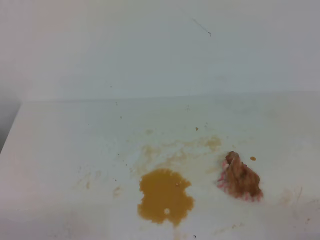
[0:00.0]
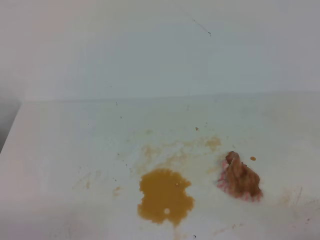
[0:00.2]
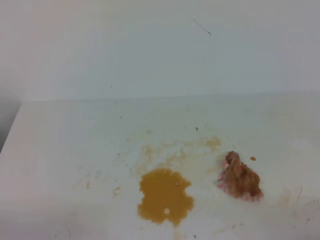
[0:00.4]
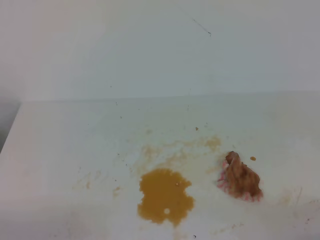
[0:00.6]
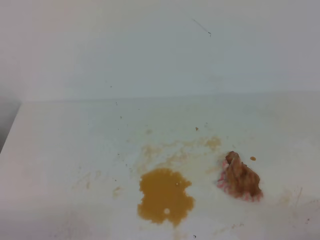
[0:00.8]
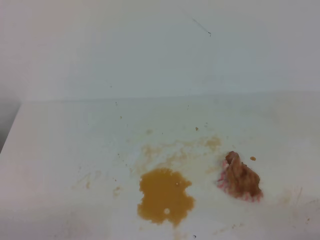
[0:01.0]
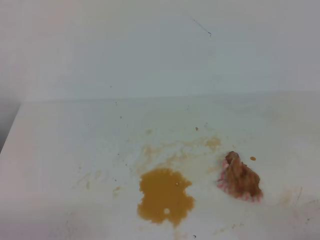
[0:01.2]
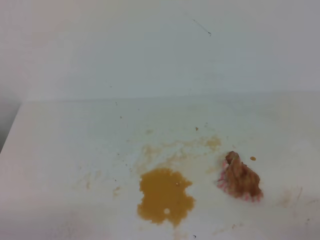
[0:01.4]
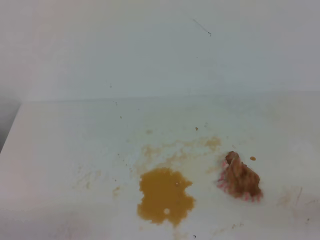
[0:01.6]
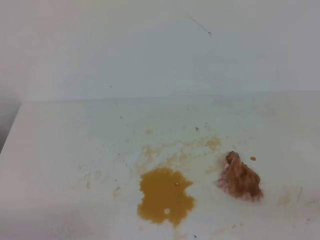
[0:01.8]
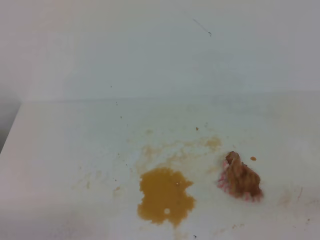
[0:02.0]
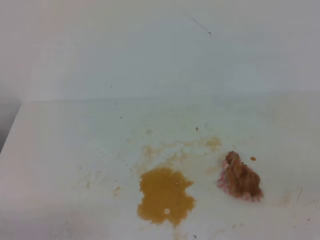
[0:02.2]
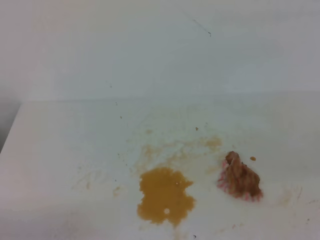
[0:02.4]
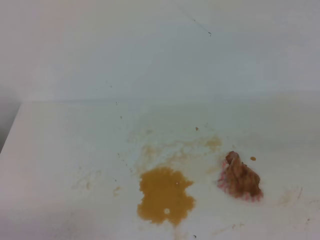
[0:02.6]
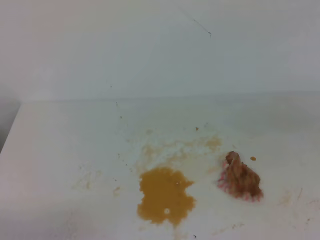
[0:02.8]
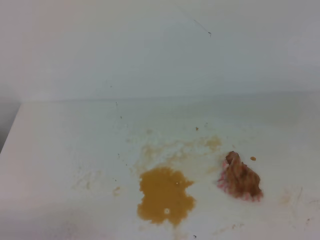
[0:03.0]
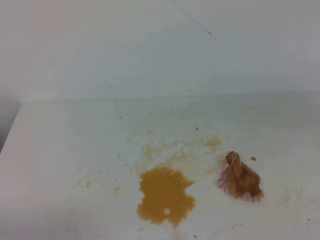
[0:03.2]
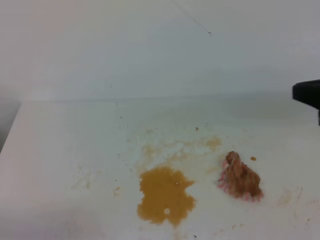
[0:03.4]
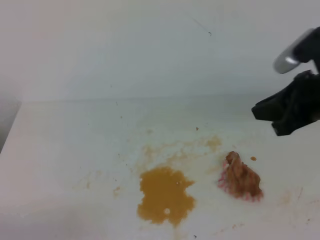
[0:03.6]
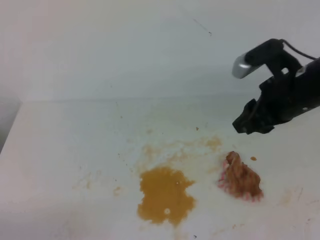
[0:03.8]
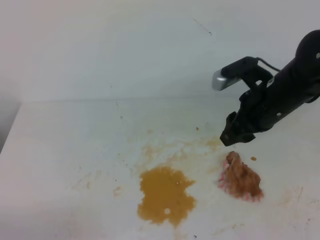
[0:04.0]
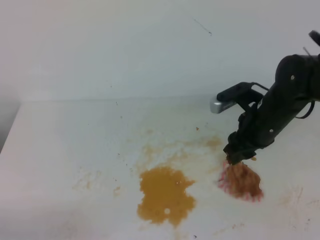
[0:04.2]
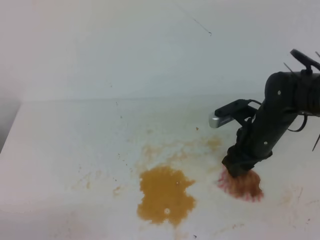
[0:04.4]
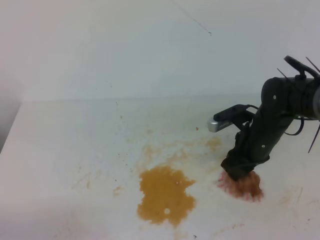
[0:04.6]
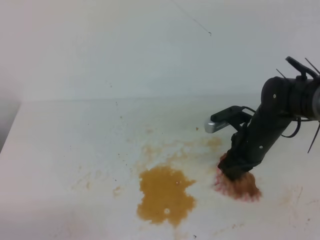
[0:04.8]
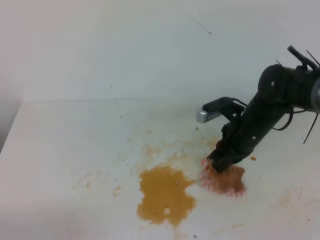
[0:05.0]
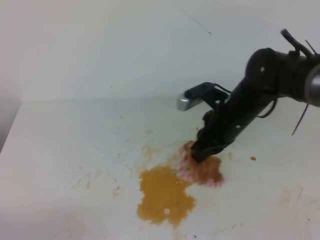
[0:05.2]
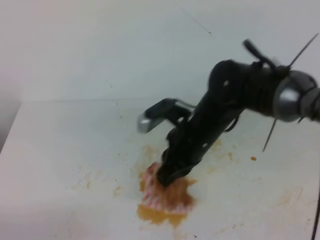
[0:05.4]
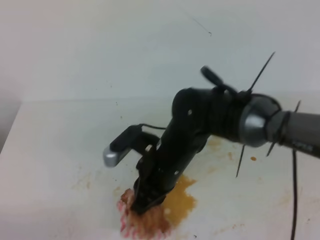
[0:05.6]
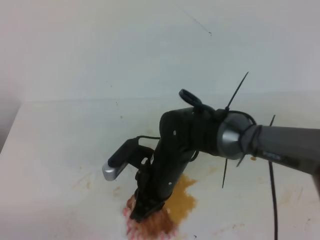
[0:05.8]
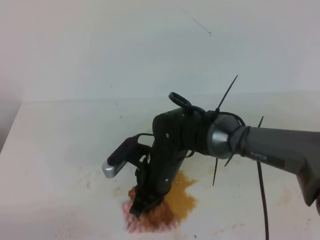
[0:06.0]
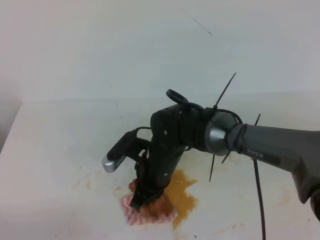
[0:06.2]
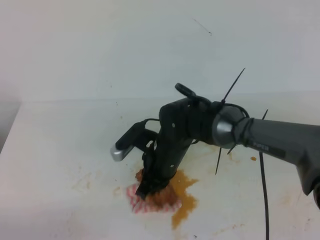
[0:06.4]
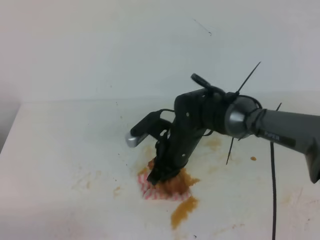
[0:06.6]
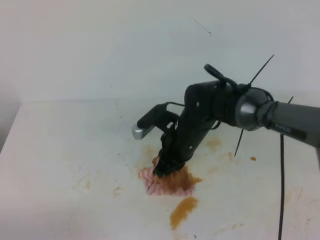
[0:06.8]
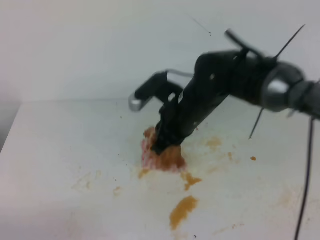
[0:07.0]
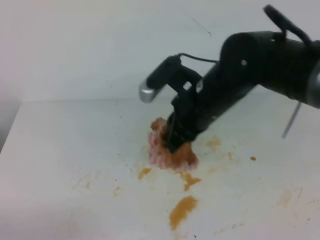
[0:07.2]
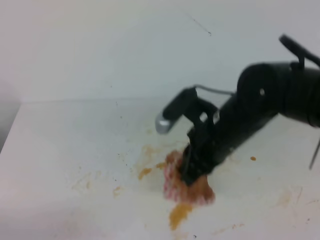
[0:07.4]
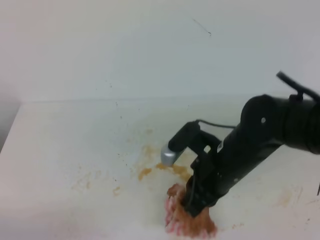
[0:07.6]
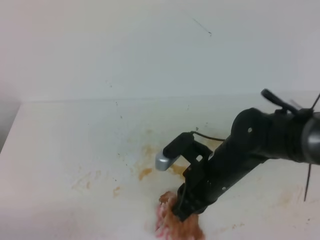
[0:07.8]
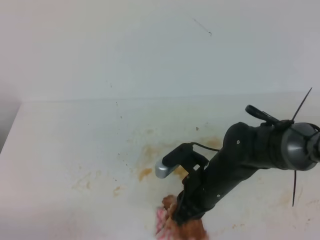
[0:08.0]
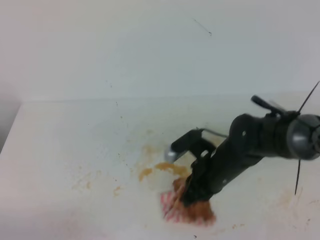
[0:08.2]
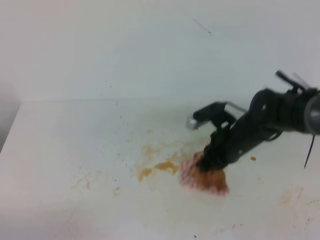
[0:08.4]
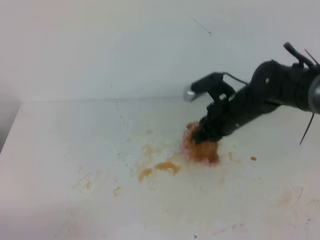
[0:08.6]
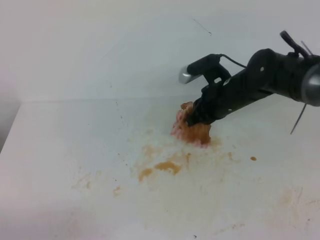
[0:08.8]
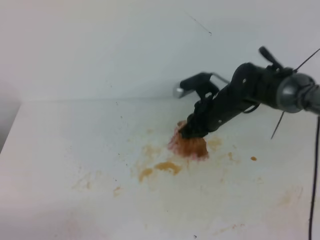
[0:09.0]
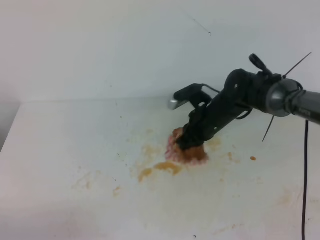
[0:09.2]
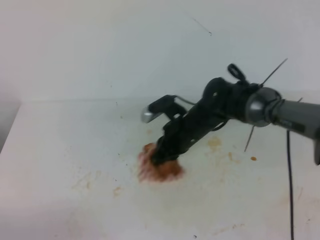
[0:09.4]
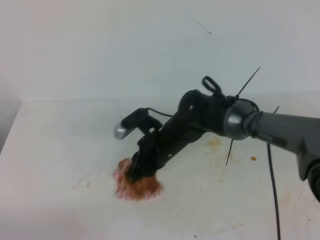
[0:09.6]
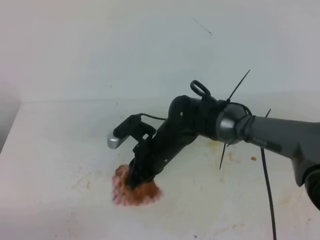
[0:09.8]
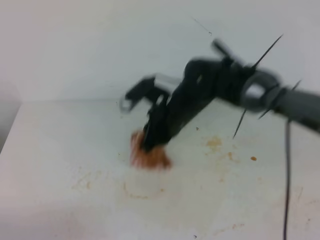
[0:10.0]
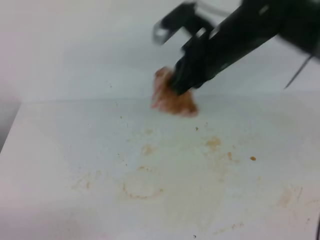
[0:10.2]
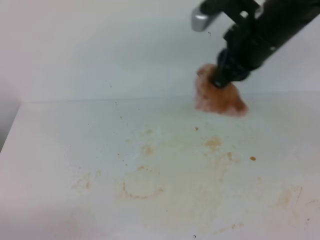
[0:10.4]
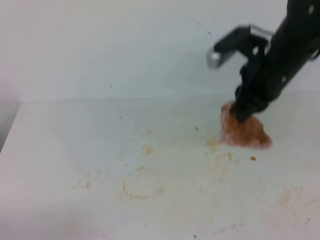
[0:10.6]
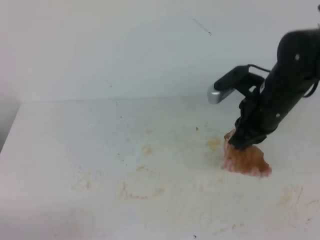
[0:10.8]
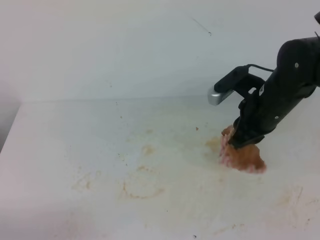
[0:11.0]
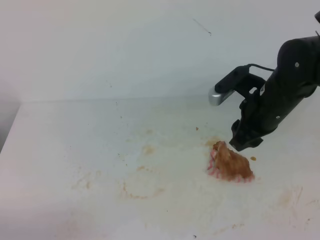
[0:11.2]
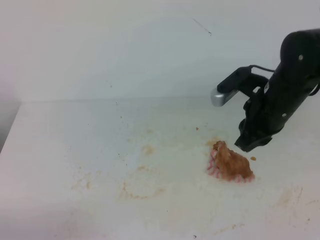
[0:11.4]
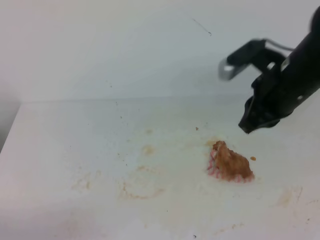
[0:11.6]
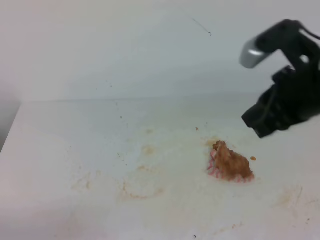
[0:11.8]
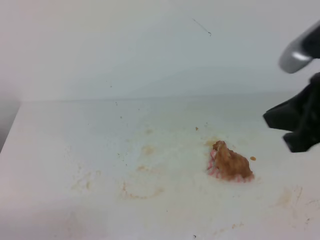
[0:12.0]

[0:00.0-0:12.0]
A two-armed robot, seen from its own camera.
0:03.0 to 0:04.4: The right gripper shifts about 30 cm forward, downward and to the left, and opens its fingers.
0:04.4 to 0:06.0: The right gripper is displaced to the left by roughly 20 cm, and closes.
0:06.0 to 0:07.6: The right gripper heads to the right and upward, covering some 10 cm.
0:07.6 to 0:09.0: The right gripper is displaced forward by some 15 cm.
0:09.0 to 0:10.4: The right gripper goes approximately 15 cm upward.
0:10.4 to 0:12.0: The right gripper heads backward and to the right, covering approximately 15 cm, and opens, then closes again.

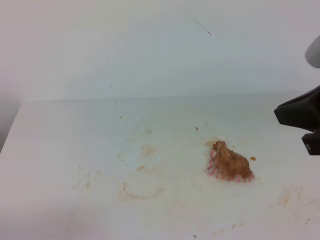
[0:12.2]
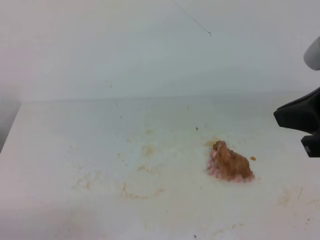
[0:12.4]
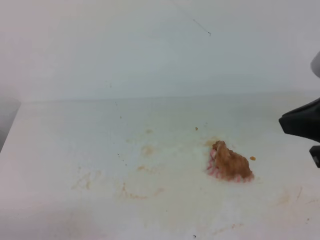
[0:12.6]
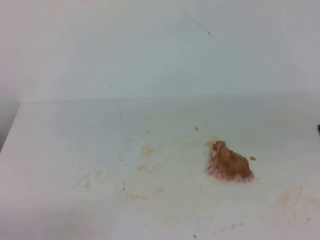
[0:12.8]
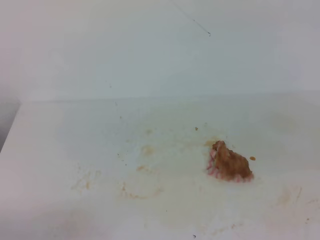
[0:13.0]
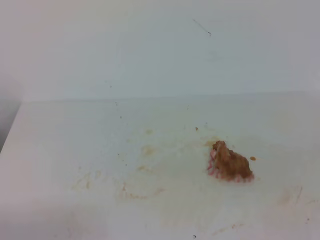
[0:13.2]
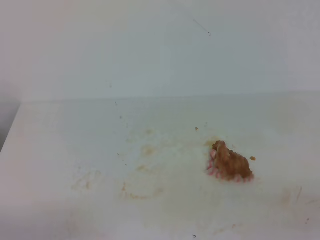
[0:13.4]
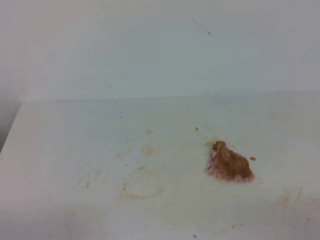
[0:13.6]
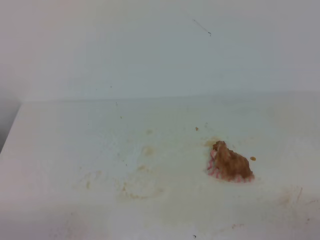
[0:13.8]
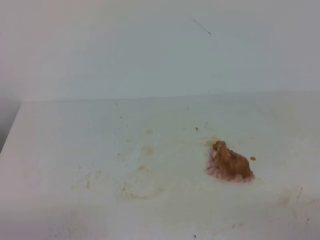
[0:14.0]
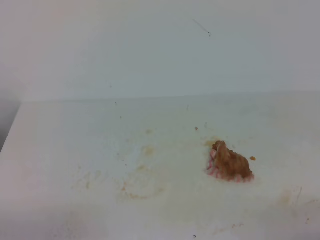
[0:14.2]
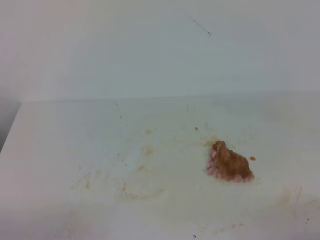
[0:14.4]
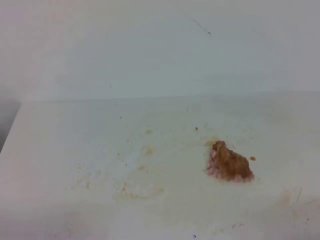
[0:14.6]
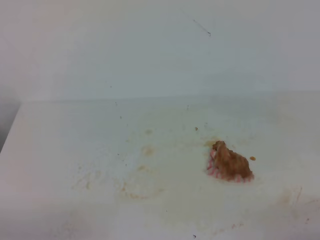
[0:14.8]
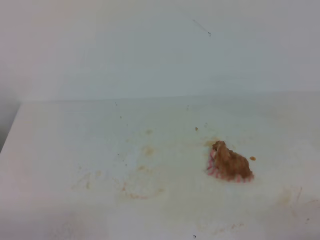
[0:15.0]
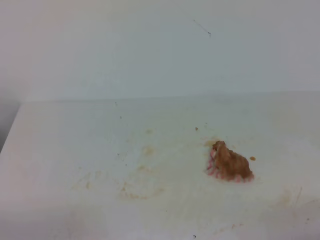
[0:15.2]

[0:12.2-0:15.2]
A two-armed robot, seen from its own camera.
0:12.2 to 0:13.8: The right gripper is displaced downward, backward and to the right by approximately 25 cm.
